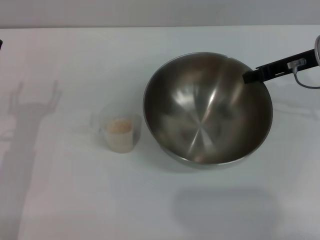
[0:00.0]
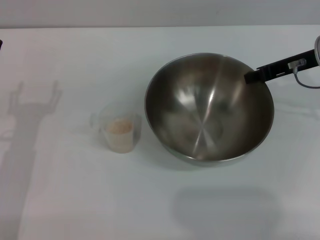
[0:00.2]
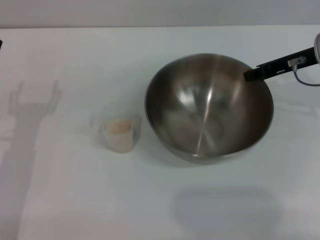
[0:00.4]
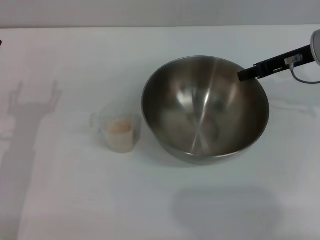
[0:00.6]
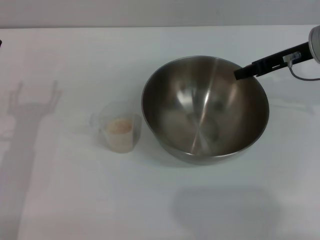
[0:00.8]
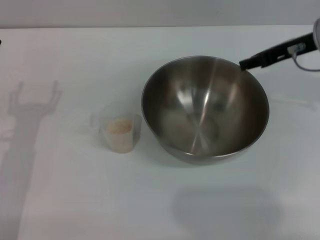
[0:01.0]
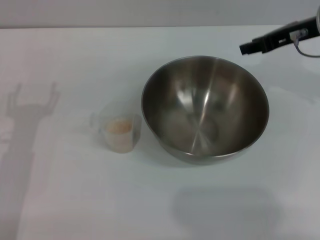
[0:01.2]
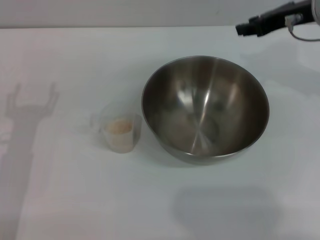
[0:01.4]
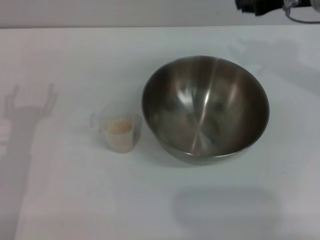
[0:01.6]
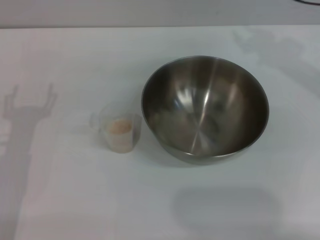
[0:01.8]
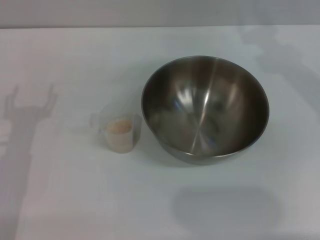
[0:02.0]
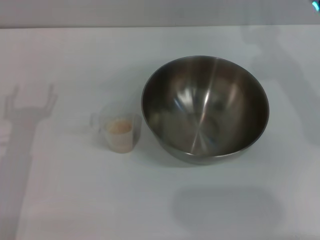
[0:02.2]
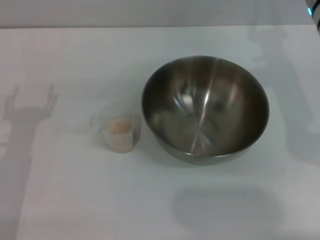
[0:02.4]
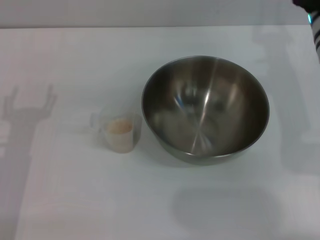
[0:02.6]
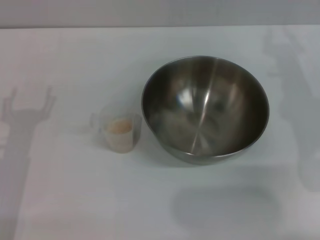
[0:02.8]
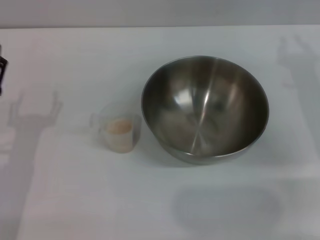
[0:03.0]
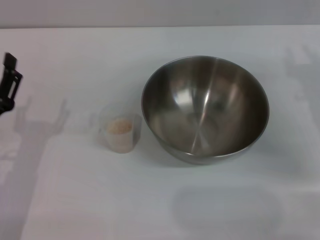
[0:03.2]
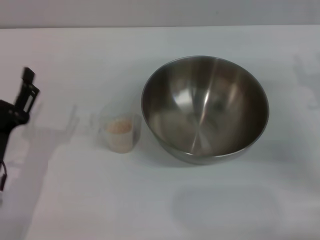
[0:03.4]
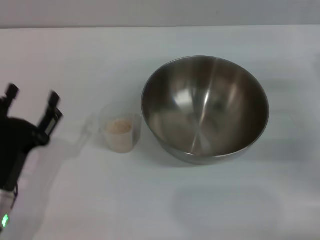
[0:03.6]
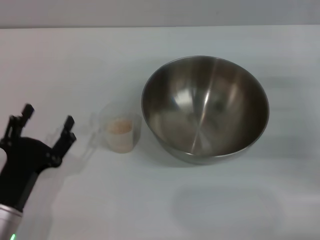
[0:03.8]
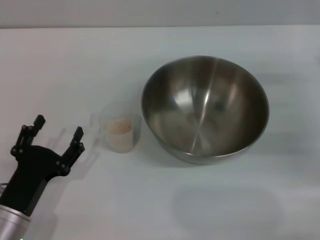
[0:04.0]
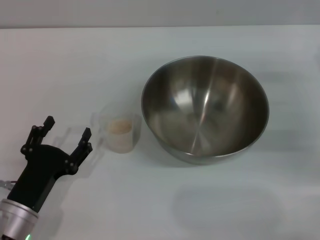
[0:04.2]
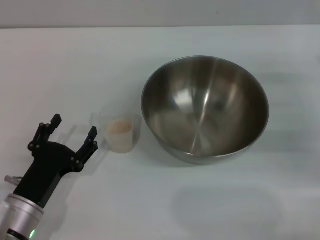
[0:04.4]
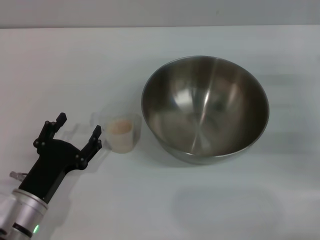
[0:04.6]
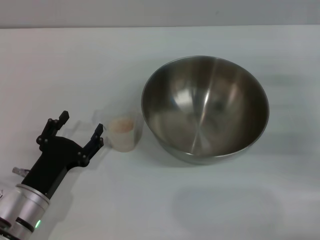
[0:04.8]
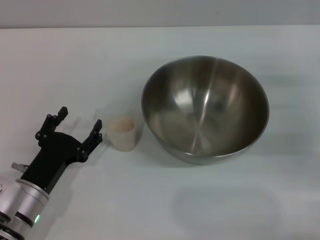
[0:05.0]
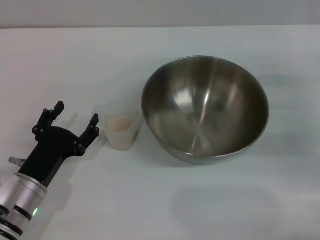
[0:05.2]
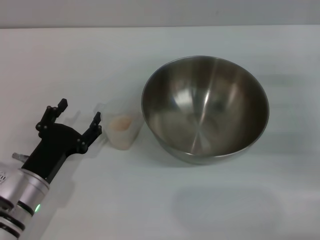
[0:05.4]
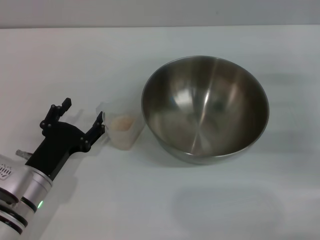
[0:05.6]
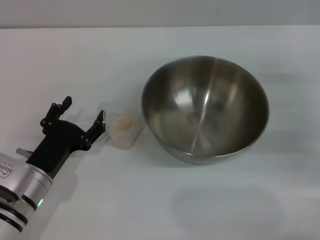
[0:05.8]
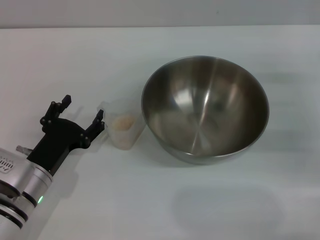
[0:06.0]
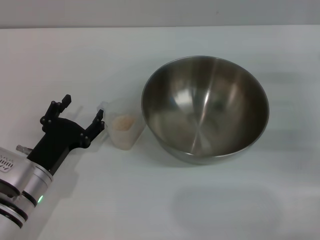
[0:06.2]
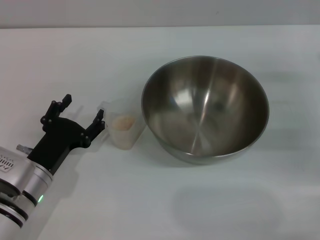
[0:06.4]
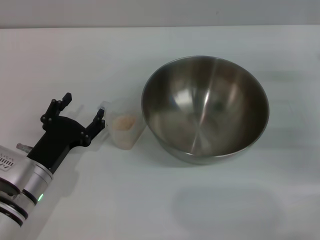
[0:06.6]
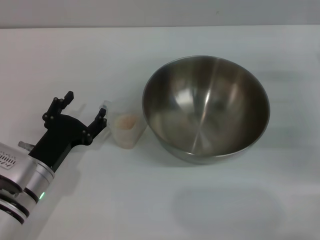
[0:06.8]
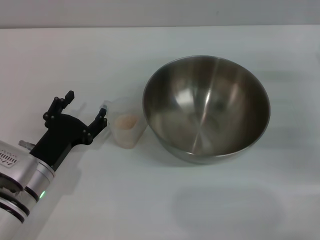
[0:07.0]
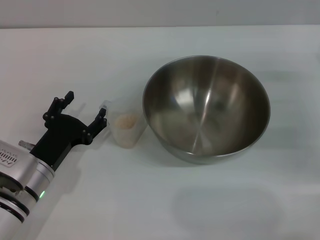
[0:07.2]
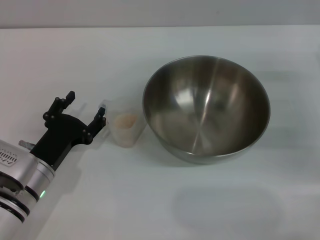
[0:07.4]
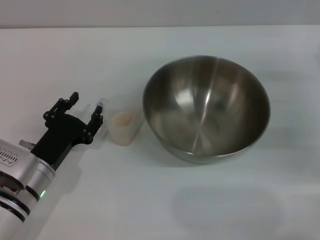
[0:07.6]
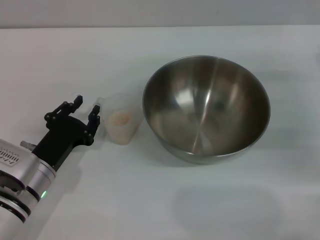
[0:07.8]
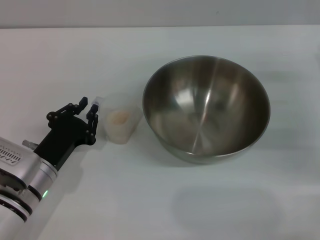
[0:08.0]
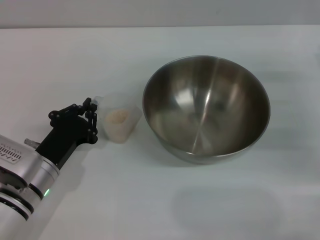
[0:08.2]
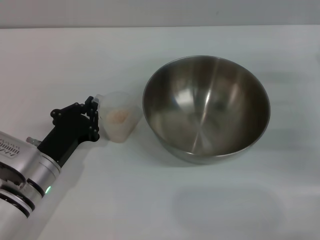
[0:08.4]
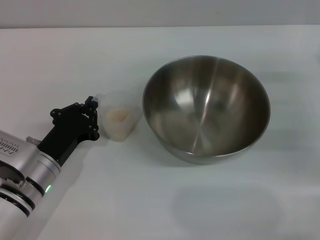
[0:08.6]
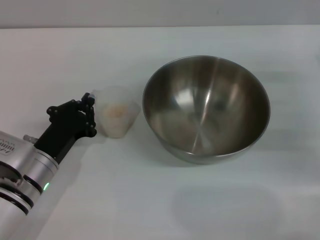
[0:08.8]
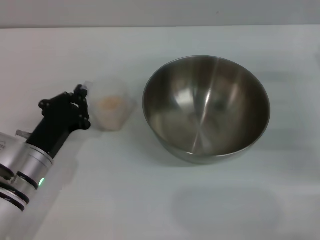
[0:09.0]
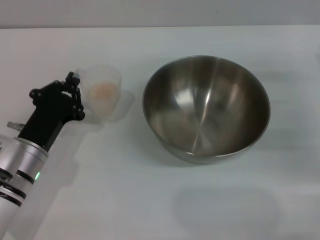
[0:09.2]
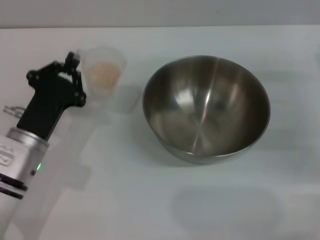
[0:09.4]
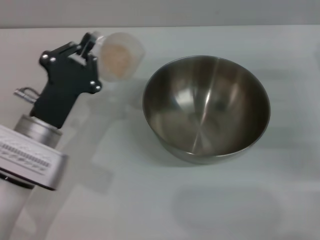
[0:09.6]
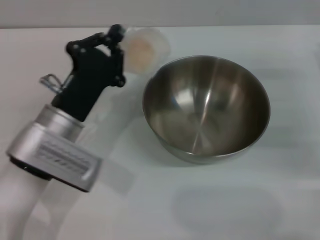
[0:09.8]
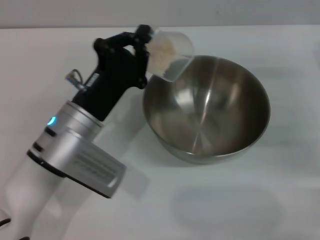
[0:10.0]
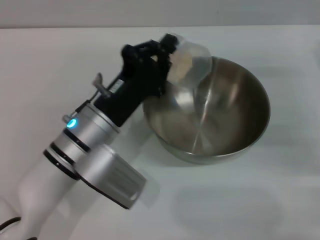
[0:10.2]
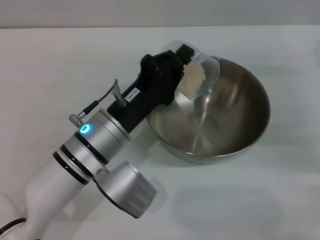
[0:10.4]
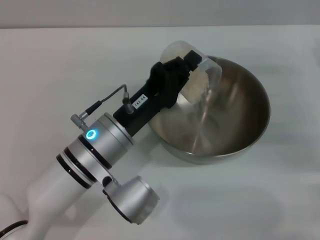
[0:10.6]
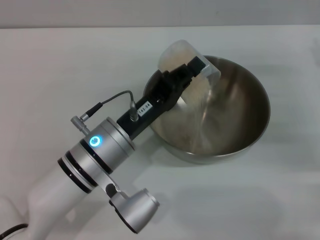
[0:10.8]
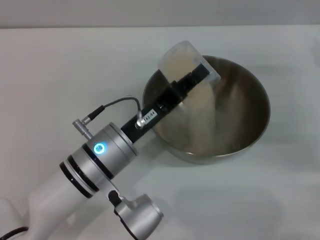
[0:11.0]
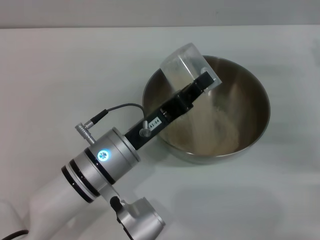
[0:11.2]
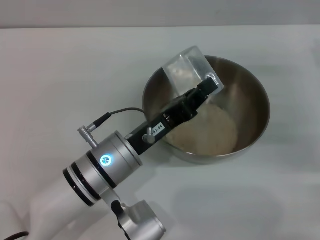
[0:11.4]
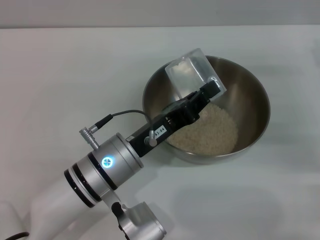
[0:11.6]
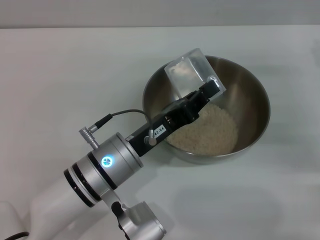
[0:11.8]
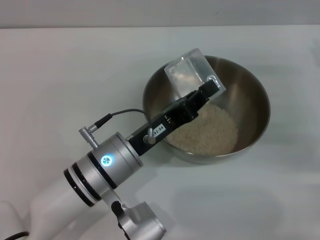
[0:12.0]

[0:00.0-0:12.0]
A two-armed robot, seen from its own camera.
Task of the whole recording: Place the bowl in the middle of the table with one hand and pour the rice from the grain cup into it with the other hand.
Step, 0:00.0 to 0:01.0: Place the bowl in the center of view with the right gripper.
Step, 0:01.2 to 0:09.2: Pick up the cup with rice in it with the left gripper.
0:00.0 to 0:01.6: The right gripper is displaced upward by about 5 cm, and opens.
0:01.6 to 0:03.0: The right gripper heads downward and backward, covering approximately 15 cm.
0:03.0 to 0:04.4: The left gripper travels downward by approximately 5 cm; the right gripper travels to the right by approximately 5 cm, and opens up.
0:04.4 to 0:06.0: The left gripper heads forward, covering approximately 5 cm.
0:06.0 to 0:07.6: Both grippers stay about where they are.
0:07.6 to 0:09.0: The left gripper closes its fingers.
0:09.0 to 0:10.4: The left gripper goes roughly 10 cm to the right and upward.

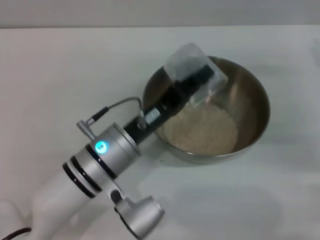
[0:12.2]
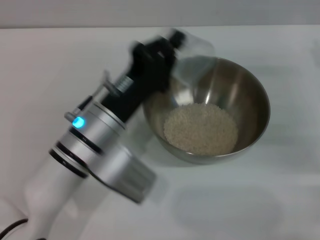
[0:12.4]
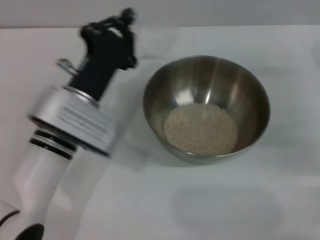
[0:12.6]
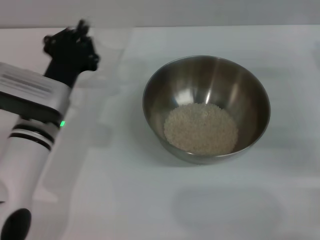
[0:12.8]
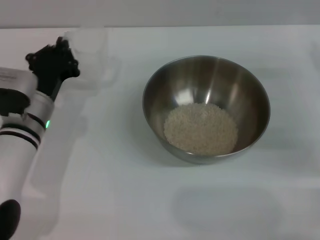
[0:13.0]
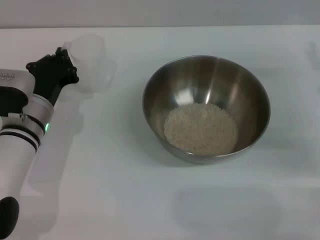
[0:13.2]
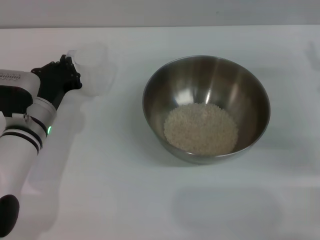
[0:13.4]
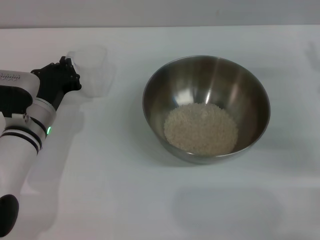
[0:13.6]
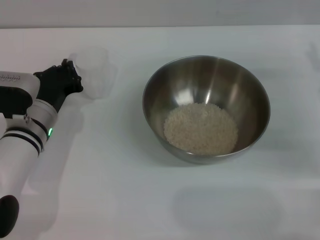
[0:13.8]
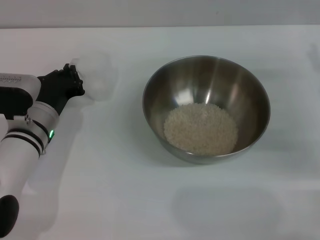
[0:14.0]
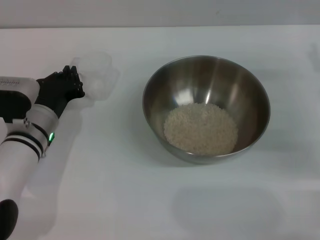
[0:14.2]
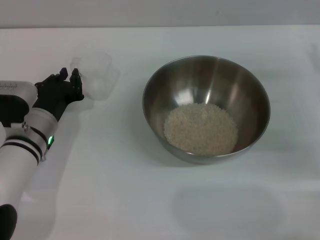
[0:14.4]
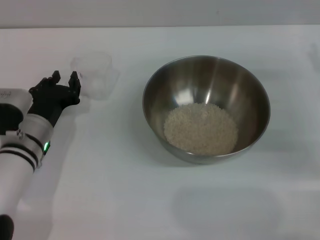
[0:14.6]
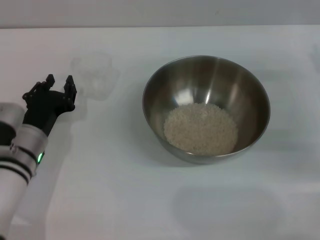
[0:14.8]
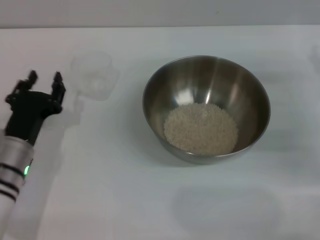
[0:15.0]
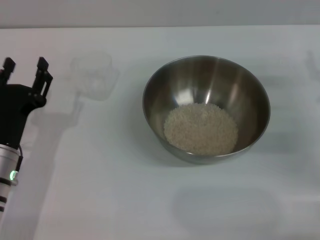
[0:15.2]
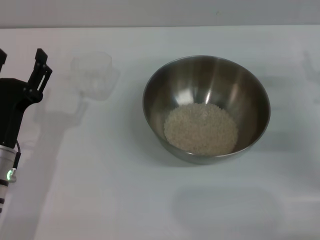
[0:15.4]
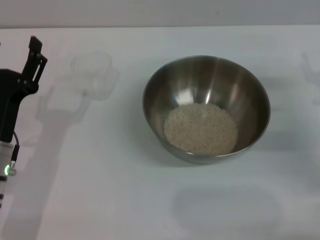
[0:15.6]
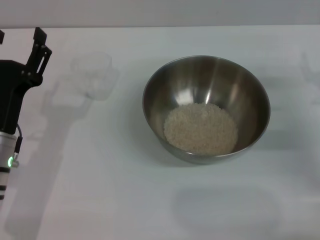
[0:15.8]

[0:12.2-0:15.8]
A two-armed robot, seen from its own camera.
Task of the whole recording: Place the bowl in the middle of the table with one hand and pour the rice from the grain cup into it with the other hand.
Step, 0:12.4 to 0:14.8: Place the cup on the table with the left gripper.
0:12.2 to 0:14.0: The left gripper shifts roughly 15 cm to the left and forward.
0:14.0 to 0:15.8: The left gripper moves backward, approximately 10 cm, and opens.

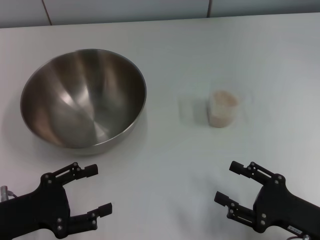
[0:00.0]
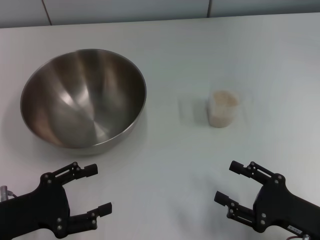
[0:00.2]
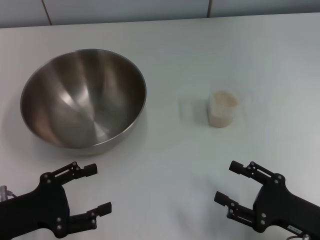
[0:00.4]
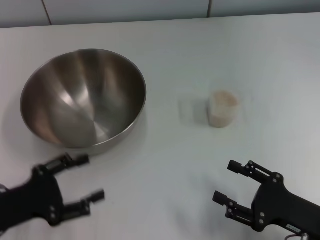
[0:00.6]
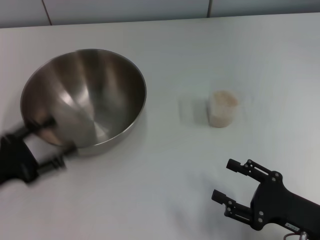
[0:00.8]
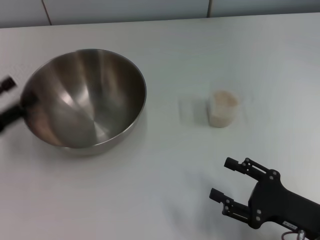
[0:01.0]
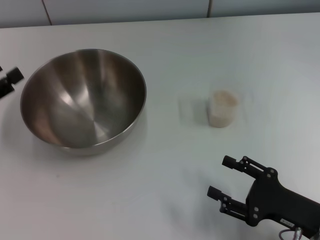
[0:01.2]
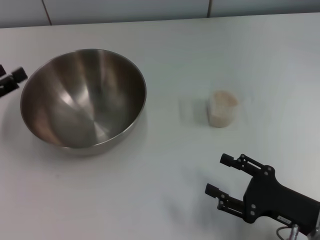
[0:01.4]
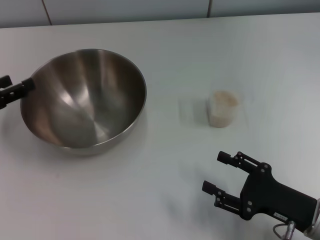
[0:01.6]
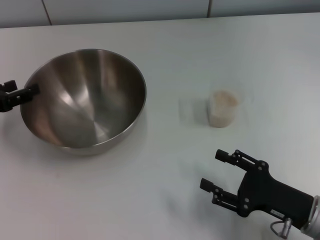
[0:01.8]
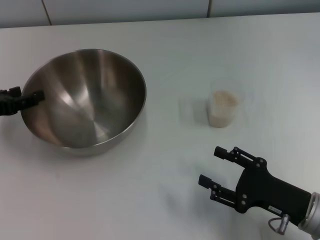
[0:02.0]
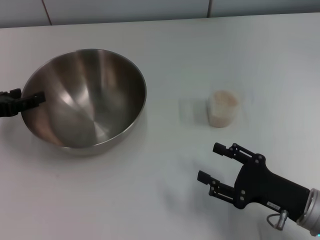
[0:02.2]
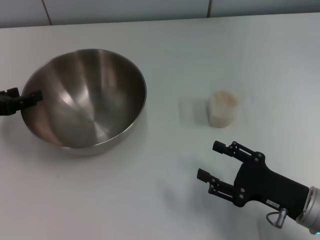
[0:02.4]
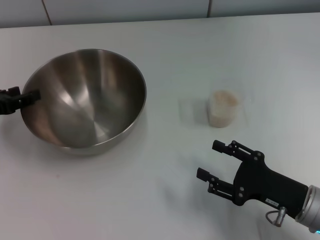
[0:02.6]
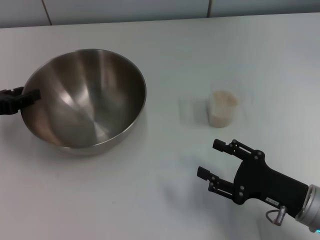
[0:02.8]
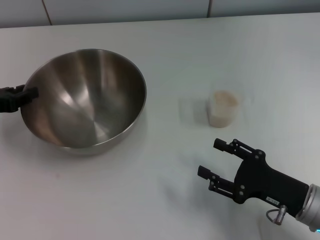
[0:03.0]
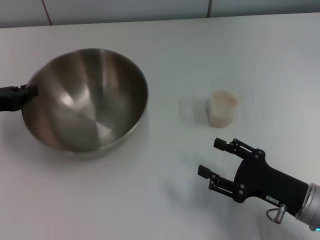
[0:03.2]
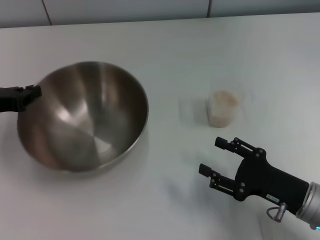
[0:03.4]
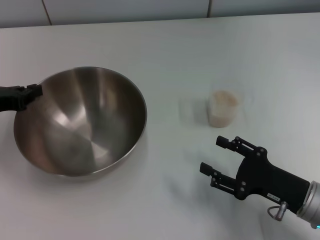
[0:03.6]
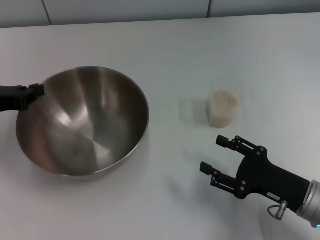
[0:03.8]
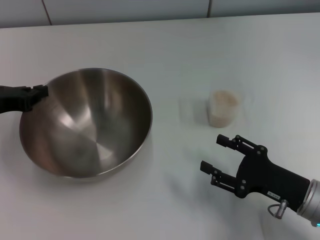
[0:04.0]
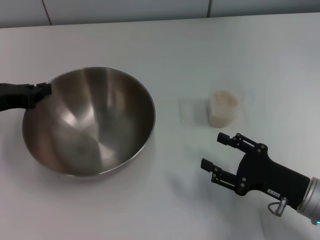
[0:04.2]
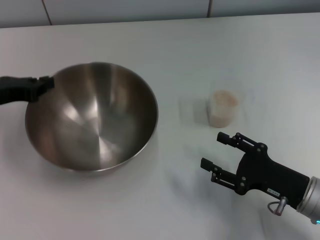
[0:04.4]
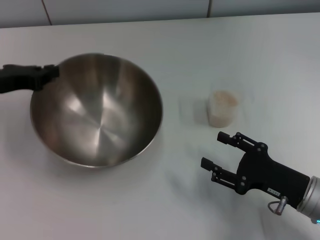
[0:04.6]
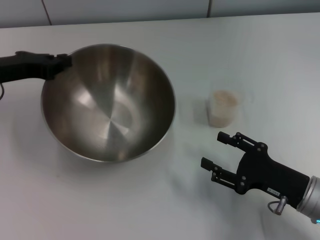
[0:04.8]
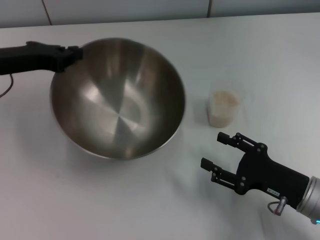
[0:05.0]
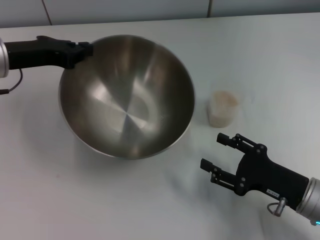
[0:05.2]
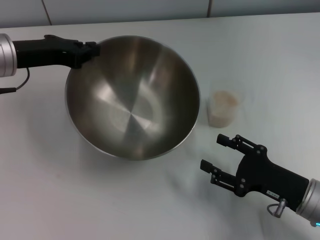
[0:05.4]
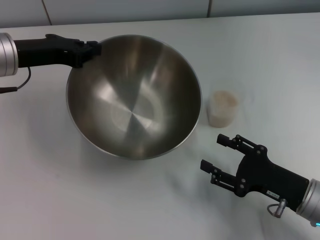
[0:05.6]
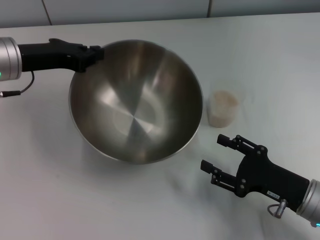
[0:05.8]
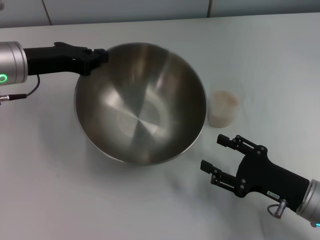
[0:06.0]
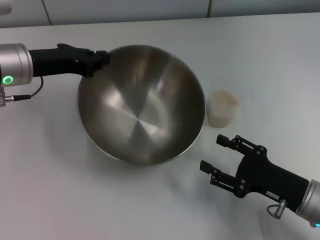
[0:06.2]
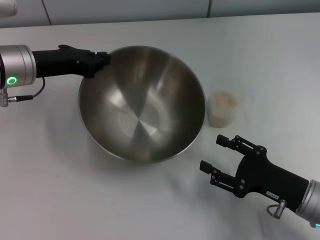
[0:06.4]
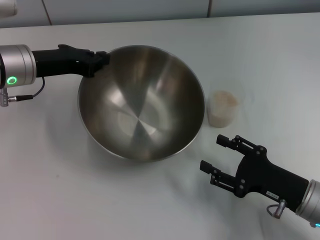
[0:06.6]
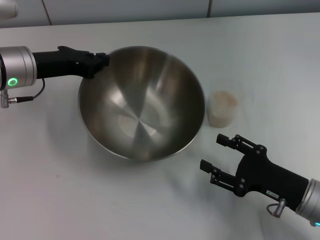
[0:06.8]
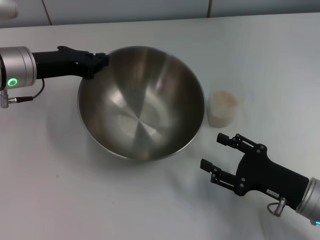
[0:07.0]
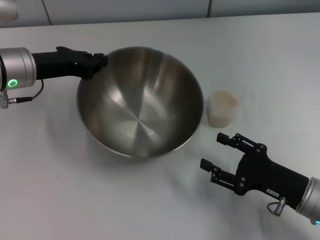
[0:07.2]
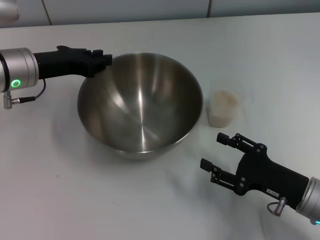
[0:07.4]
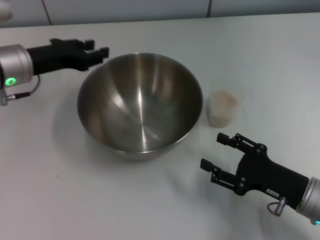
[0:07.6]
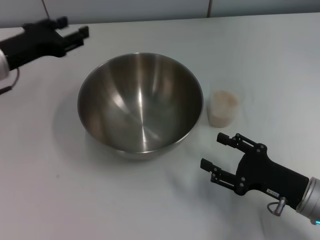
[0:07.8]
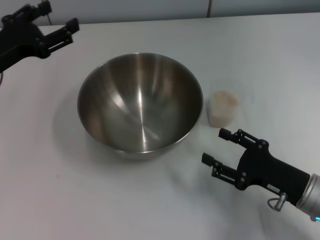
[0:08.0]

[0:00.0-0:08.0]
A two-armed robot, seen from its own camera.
Task of the whole recording: Place the bowl in the middle of the table with one hand and pour the rice from the grain cup into it with the other hand.
Step, 0:00.0 to 0:04.4: Pick up the bowl with the left gripper.
0:00.0 to 0:01.6: The left gripper goes some 15 cm forward, to the left and upward.
0:01.6 to 0:03.2: The left gripper closes up.
0:03.2 to 0:04.8: The left gripper moves approximately 5 cm.
0:04.8 to 0:06.4: The left gripper moves to the right, some 5 cm.
0:06.4 to 0:08.0: The left gripper is displaced to the left by about 5 cm, and opens up.
